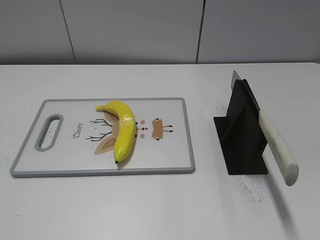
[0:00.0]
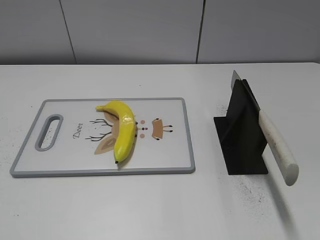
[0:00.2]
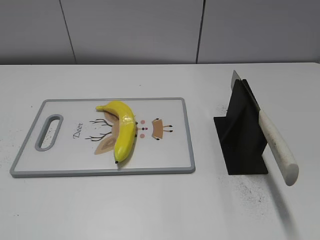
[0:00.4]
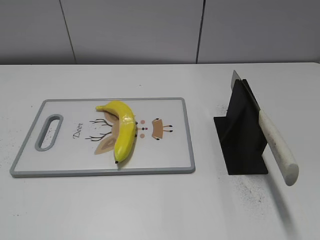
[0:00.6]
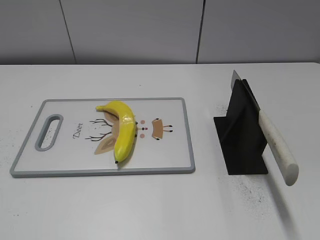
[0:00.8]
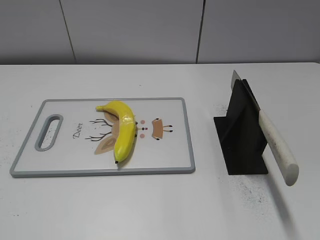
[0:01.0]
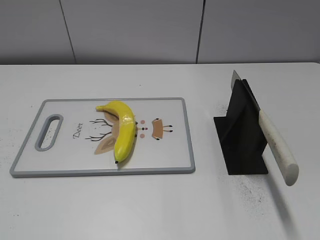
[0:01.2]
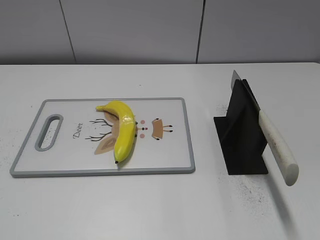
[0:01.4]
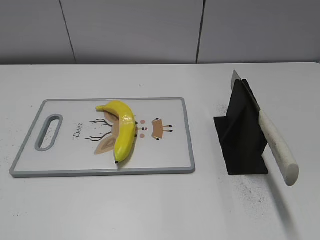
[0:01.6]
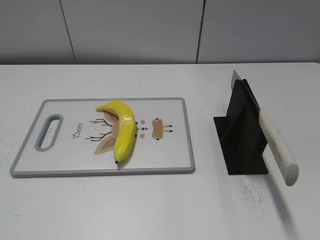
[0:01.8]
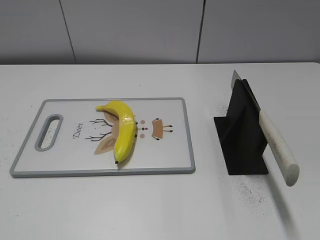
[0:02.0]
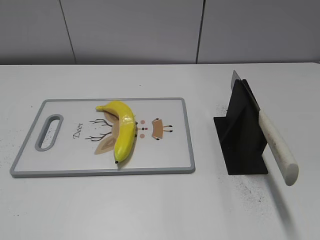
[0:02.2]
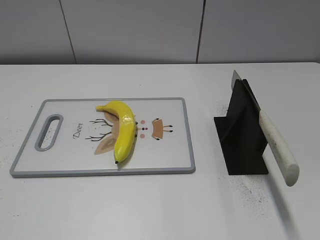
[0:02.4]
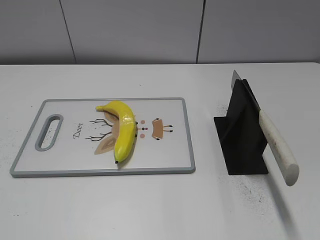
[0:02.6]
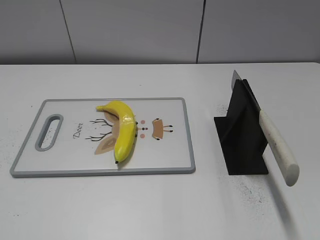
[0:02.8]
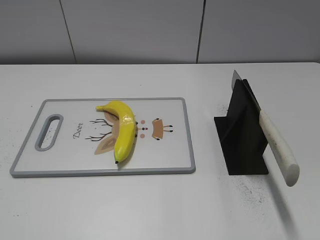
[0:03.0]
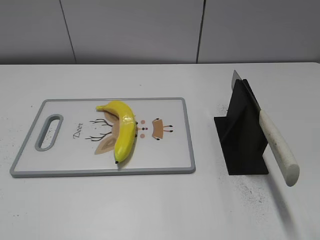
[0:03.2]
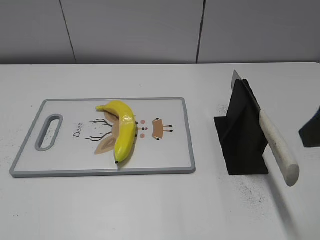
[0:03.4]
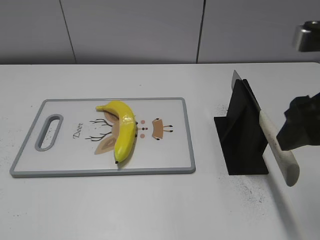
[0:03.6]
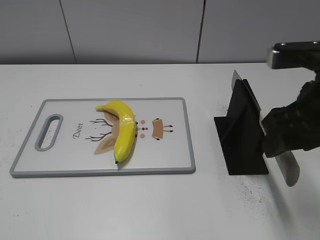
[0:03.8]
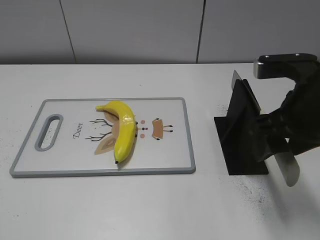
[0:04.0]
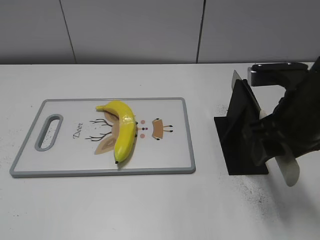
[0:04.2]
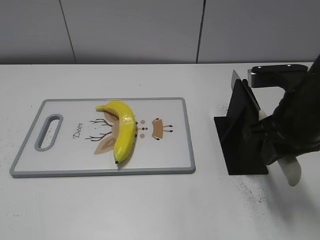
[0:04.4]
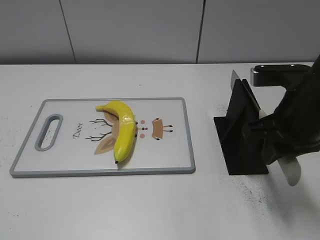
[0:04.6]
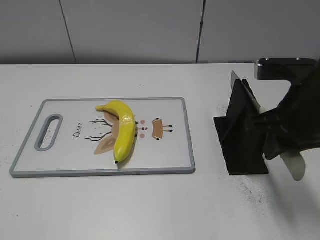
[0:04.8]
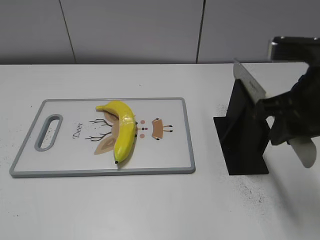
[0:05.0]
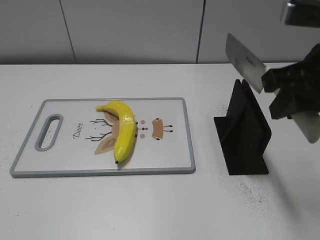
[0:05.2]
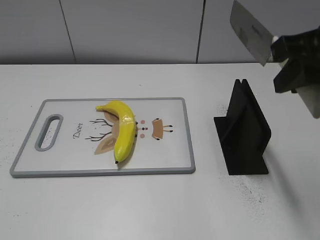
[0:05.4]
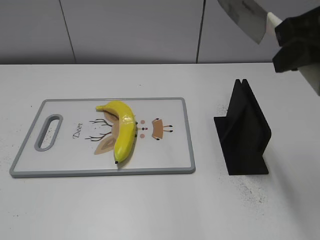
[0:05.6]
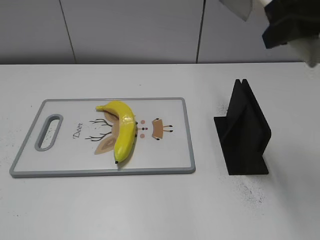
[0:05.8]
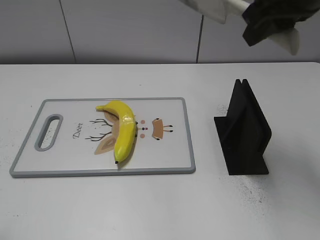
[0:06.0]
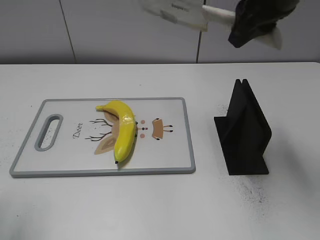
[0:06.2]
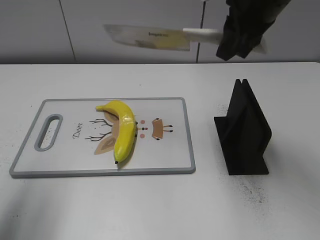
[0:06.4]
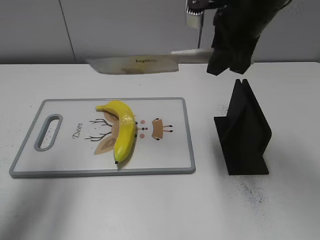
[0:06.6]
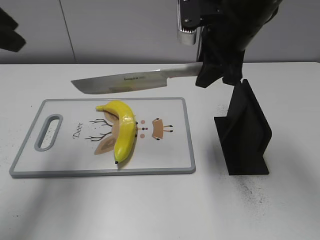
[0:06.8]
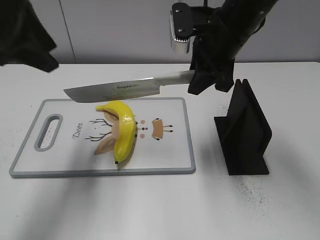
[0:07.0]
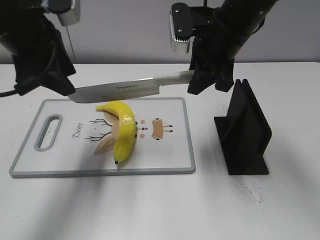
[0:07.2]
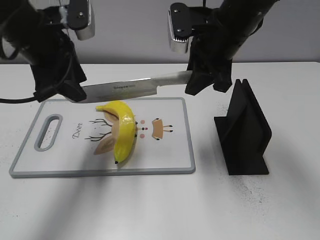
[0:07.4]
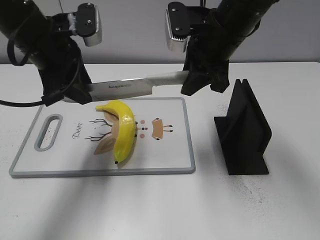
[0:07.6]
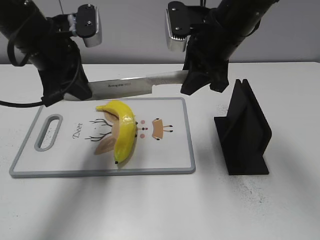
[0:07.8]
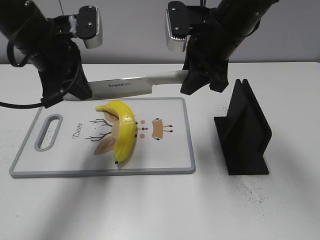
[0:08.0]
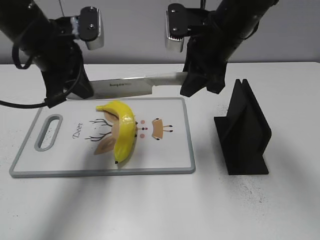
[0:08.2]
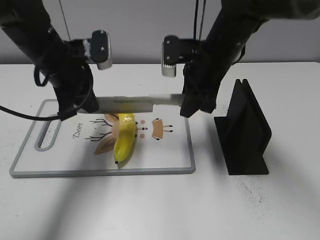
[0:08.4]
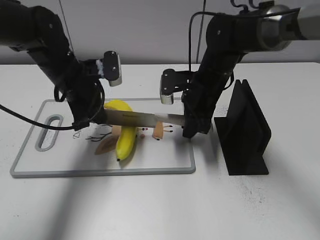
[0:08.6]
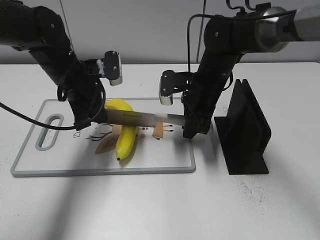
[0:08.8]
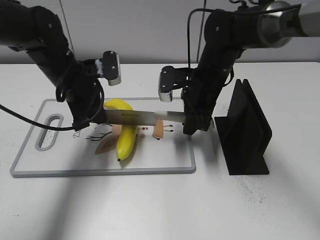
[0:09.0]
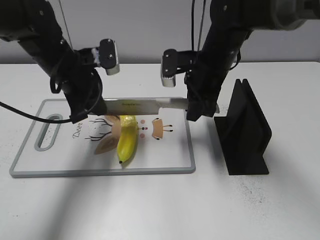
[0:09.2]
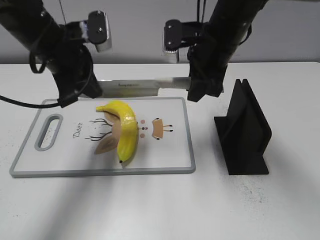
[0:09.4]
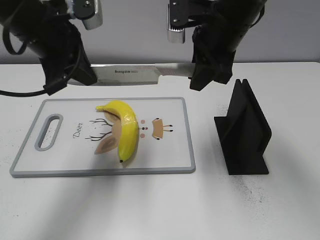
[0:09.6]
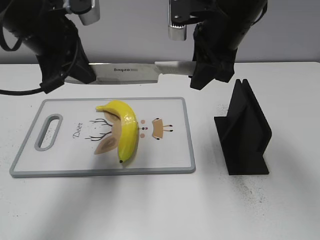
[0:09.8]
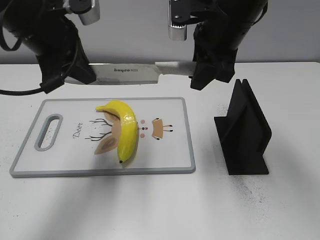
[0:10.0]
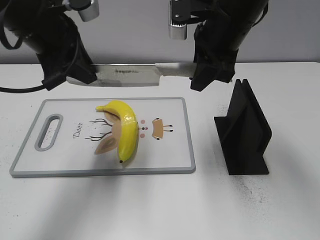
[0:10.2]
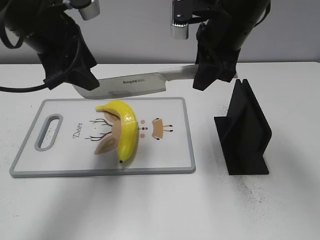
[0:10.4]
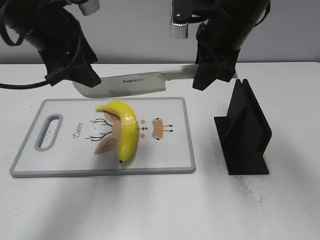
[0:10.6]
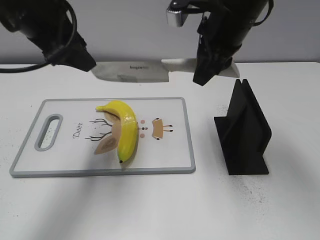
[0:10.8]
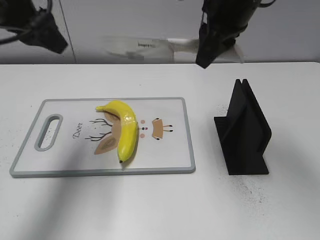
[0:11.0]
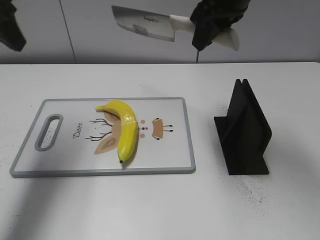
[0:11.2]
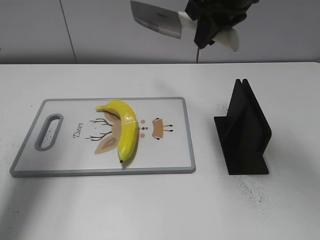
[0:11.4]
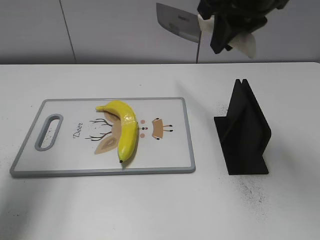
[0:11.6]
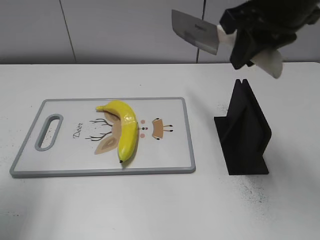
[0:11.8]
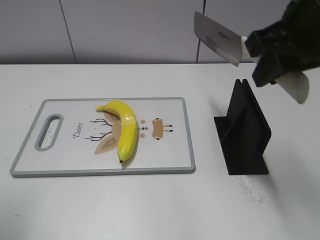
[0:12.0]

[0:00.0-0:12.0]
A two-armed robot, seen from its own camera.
Task of the whole recording: cut plastic banana.
Step, 0:00.0 to 0:05.4: Grab the knife handle with your right hand.
Step, 0:05.6 to 0:09.6: Lift the knife with your right hand.
Step, 0:09.8 to 0:10.8: Cut the banana with your right hand.
0:03.0 to 0:04.4: The right gripper is displaced forward, downward and to the left by approximately 20 cm, and closes up.
0:04.4 to 0:06.0: The right gripper goes roughly 15 cm upward.
0:06.0 to 0:07.6: The left gripper moves forward and to the right, approximately 30 cm; the right gripper heads downward, forward and to the left, covering roughly 15 cm.
0:07.6 to 0:09.0: The two grippers go roughly 10 cm downward. The left gripper closes its fingers.
0:09.0 to 0:10.4: The grippers both shift upward by approximately 15 cm. The left gripper opens.
0:10.4 to 0:12.0: The right gripper goes about 15 cm backward, to the right and upward, while the left gripper goes some 20 cm backward and to the left.

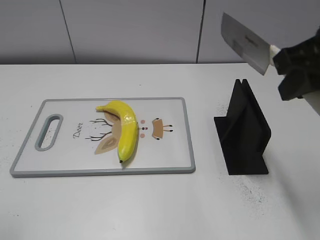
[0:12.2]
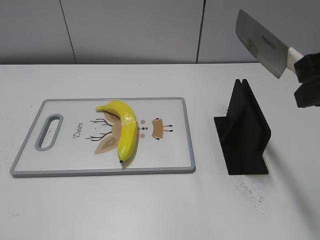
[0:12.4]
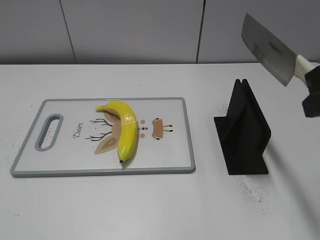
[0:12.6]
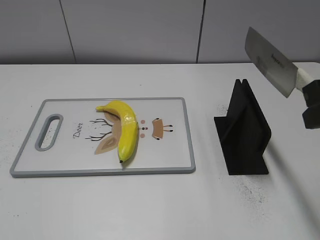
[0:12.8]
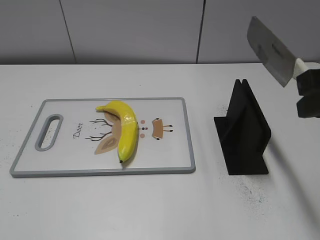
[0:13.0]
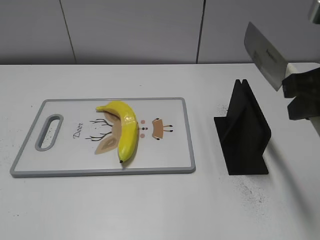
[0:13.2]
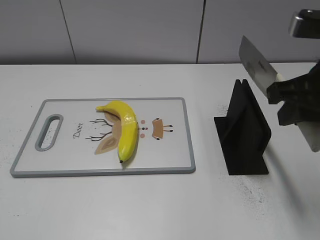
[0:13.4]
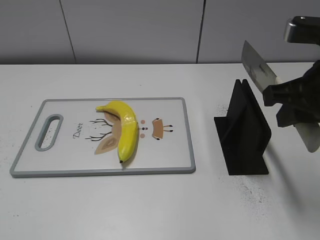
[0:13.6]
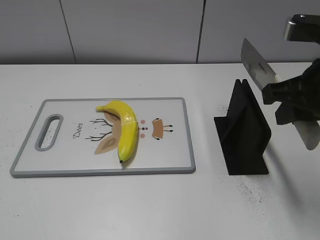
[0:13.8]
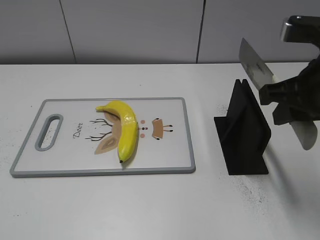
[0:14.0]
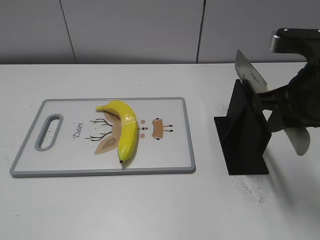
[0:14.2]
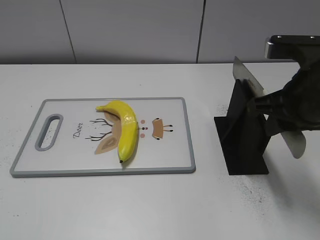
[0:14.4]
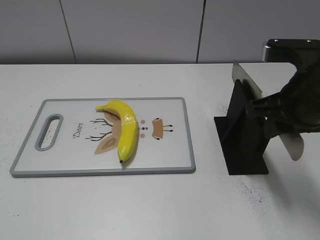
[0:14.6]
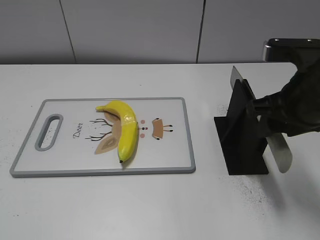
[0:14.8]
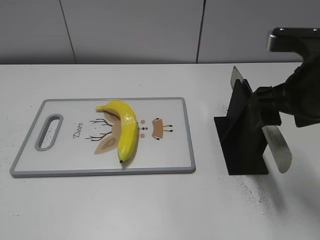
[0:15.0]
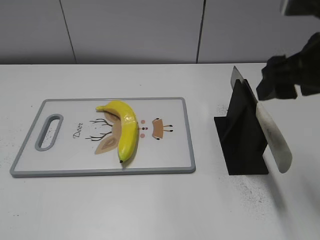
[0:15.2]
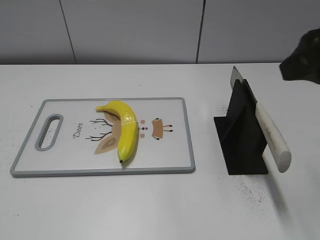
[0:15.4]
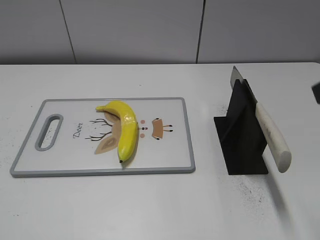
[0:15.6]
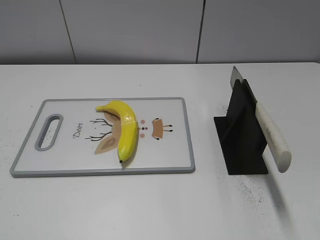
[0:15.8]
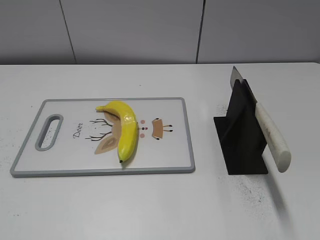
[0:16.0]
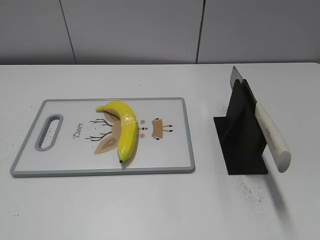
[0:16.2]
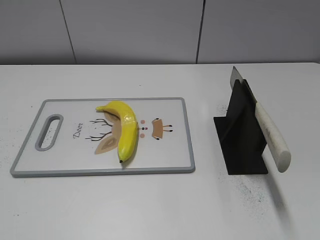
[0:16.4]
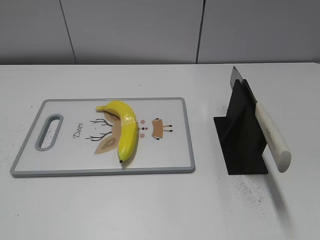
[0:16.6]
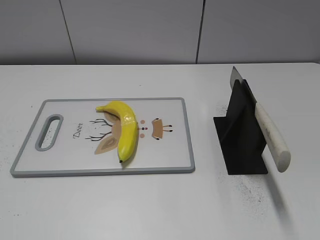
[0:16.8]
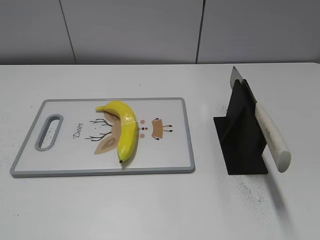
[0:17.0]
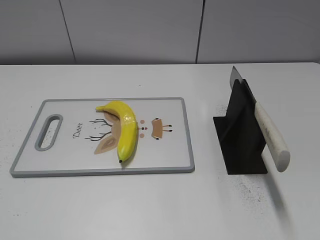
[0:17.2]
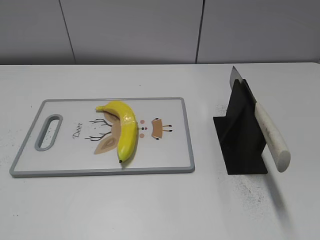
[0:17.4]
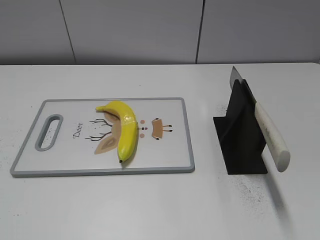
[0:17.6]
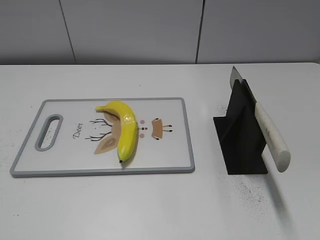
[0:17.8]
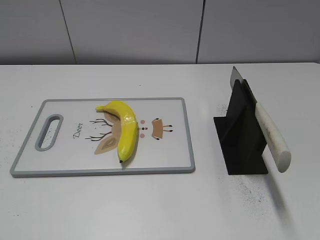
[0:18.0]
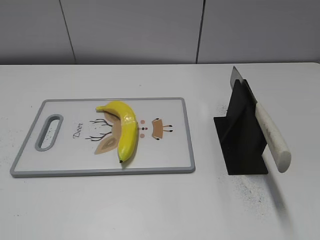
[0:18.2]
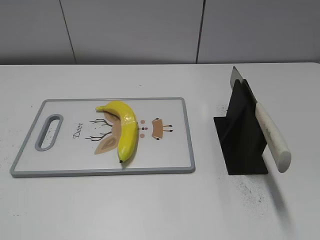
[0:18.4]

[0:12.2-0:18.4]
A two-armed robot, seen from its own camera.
Task of the whole recording: cut plastic banana.
Step, 0:12.6 to 0:18.4: Place the knife on the storage rack with your right hand.
0:12.2 to 0:13.8: The right gripper travels downward by some 5 cm.
0:13.8 to 0:15.4: The right gripper travels upward by about 5 cm, and opens.
0:15.4 to 0:16.8: The right gripper moves backward and to the right, roughly 20 cm.

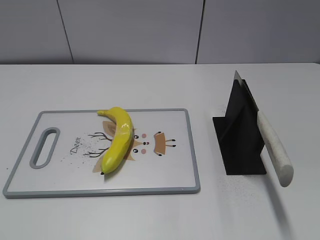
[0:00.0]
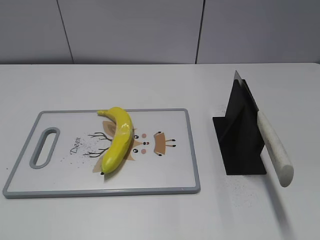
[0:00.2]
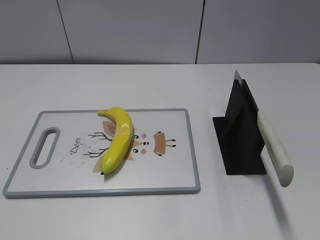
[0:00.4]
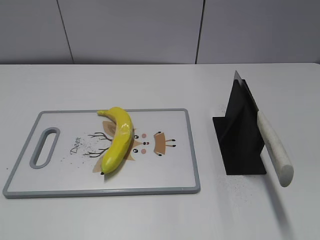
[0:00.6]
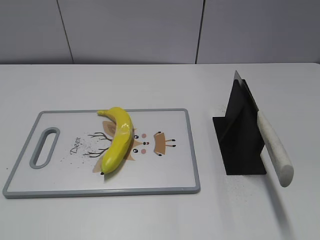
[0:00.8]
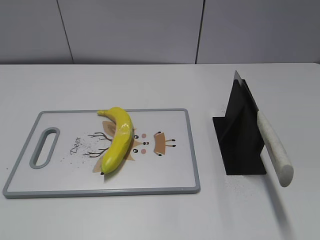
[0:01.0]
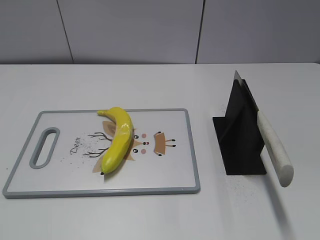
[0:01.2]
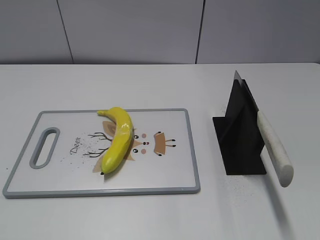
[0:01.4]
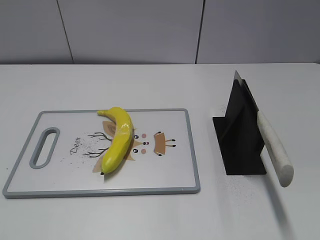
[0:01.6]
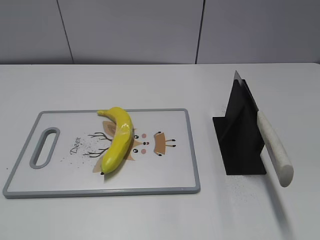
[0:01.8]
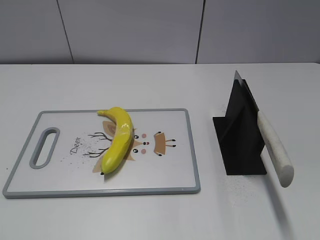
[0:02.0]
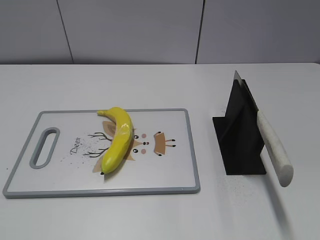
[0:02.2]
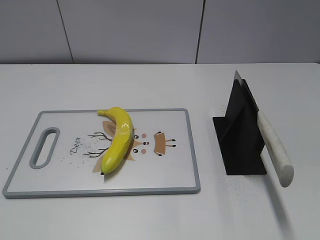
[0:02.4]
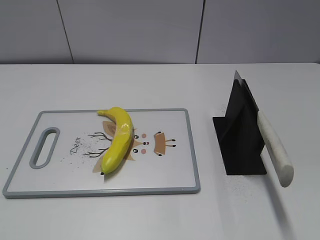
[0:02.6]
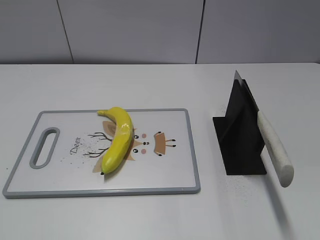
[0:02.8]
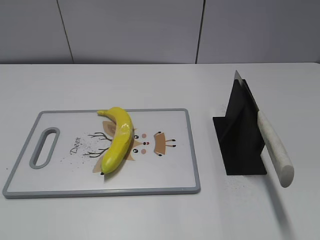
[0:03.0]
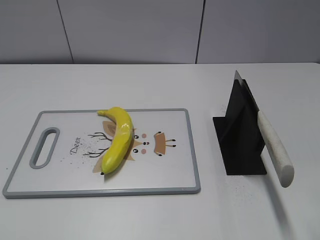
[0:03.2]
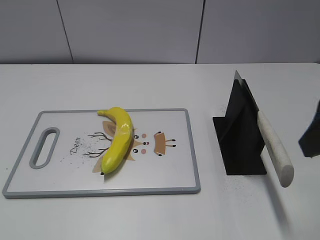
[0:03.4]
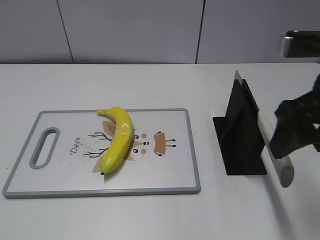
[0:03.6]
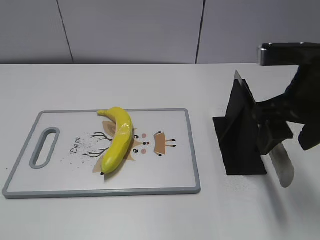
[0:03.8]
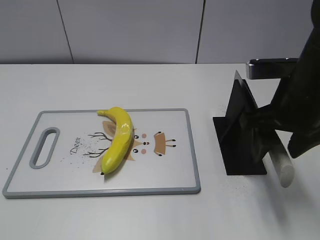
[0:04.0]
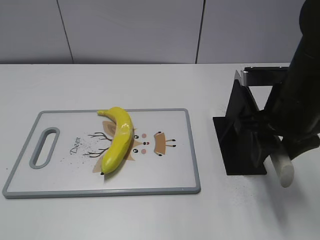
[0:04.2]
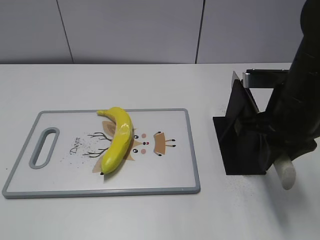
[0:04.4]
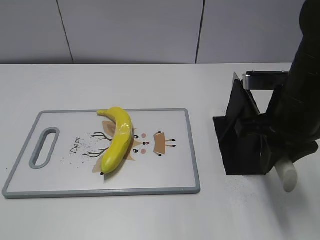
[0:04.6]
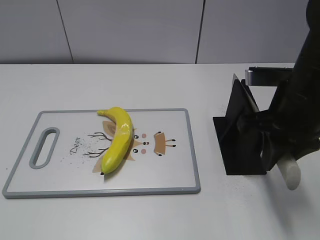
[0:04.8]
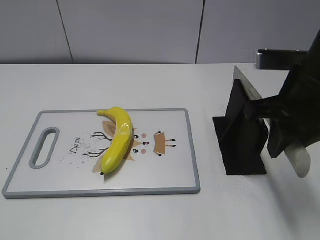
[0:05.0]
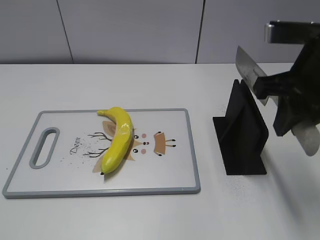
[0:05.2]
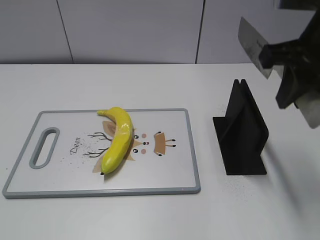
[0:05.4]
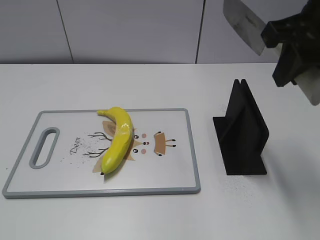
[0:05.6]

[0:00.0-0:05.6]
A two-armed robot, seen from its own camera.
Task of the whole recording: cut plastic banana.
Step, 0:00.0 to 0:05.2: Grab the knife handle with your right hand.
0:02.8 to 0:04.2: The right gripper goes some 20 cm forward, to the left and downward, and closes up.
0:04.2 to 0:05.6: The right gripper shifts about 15 cm upward, and closes.
